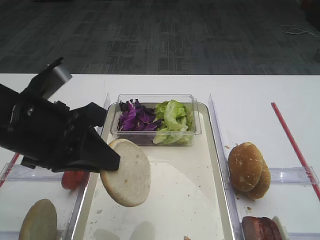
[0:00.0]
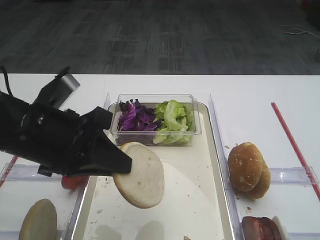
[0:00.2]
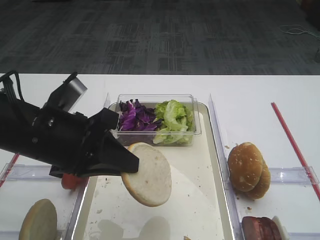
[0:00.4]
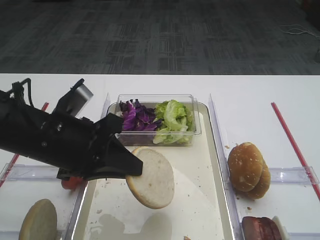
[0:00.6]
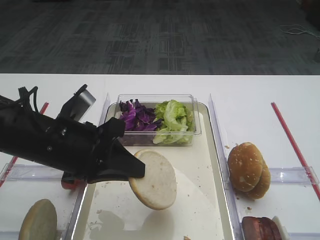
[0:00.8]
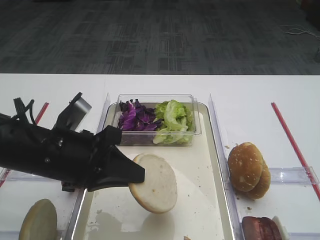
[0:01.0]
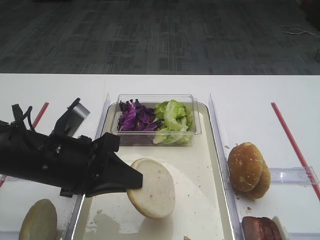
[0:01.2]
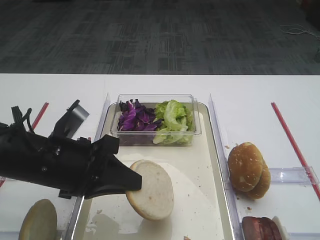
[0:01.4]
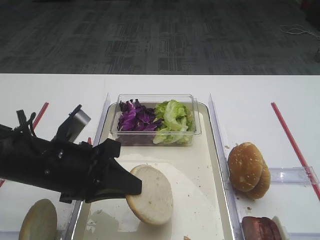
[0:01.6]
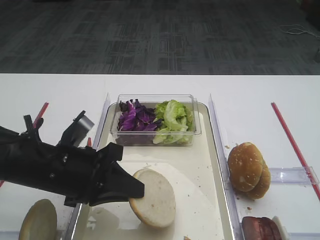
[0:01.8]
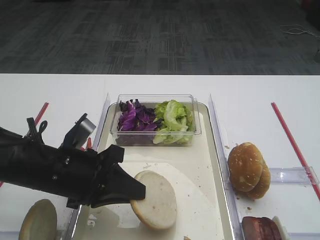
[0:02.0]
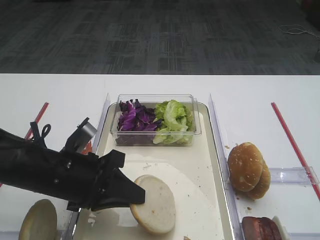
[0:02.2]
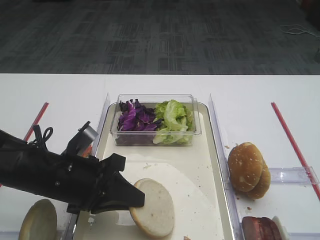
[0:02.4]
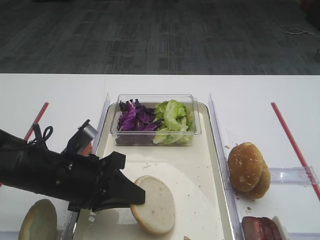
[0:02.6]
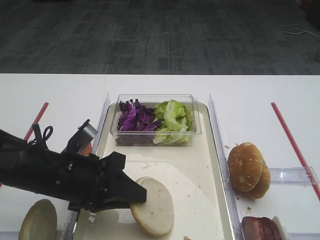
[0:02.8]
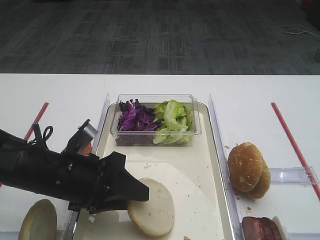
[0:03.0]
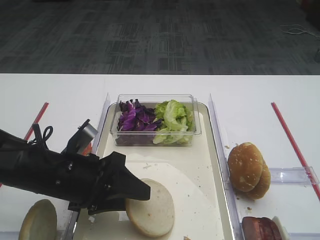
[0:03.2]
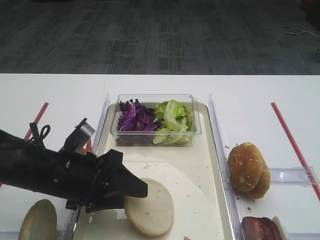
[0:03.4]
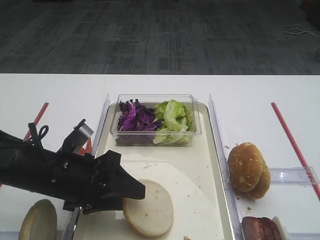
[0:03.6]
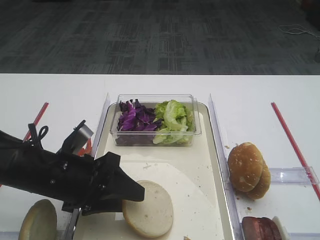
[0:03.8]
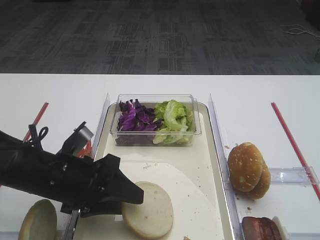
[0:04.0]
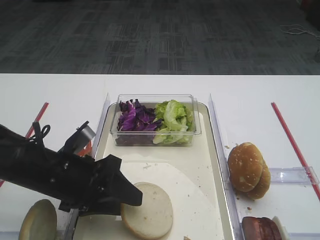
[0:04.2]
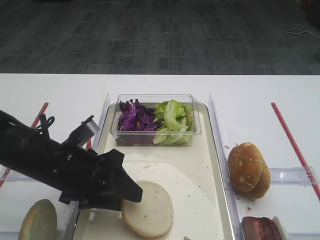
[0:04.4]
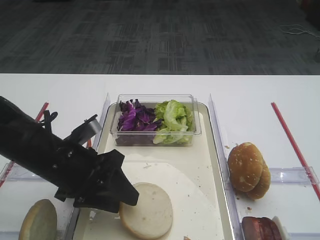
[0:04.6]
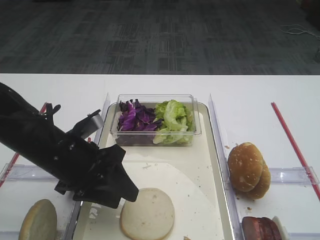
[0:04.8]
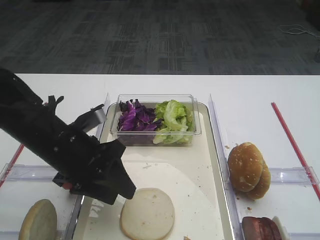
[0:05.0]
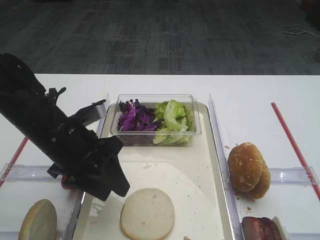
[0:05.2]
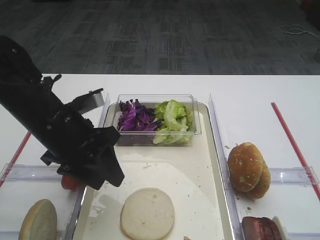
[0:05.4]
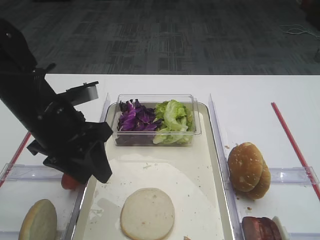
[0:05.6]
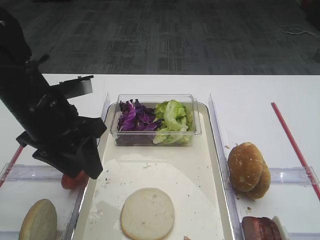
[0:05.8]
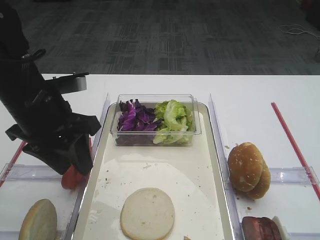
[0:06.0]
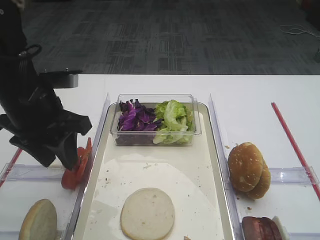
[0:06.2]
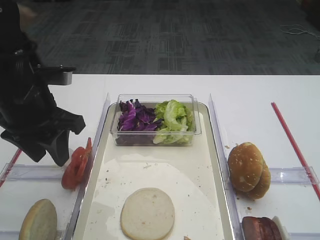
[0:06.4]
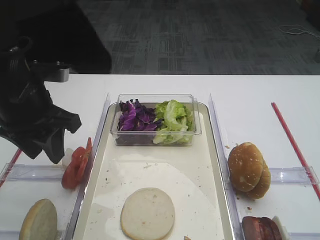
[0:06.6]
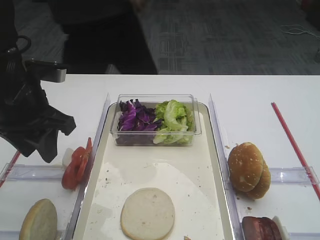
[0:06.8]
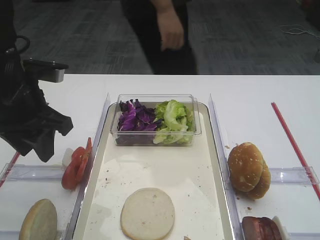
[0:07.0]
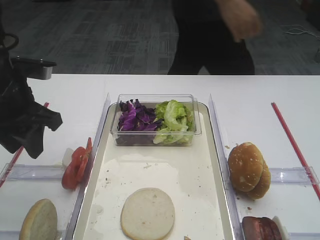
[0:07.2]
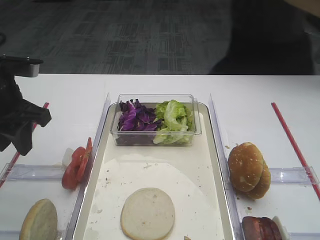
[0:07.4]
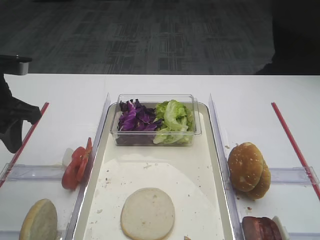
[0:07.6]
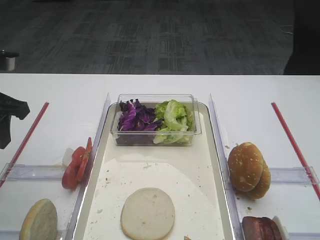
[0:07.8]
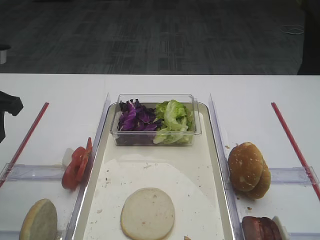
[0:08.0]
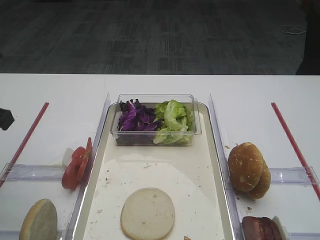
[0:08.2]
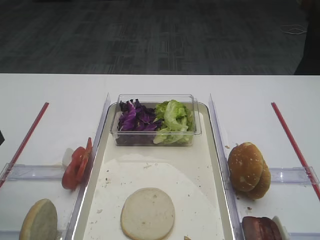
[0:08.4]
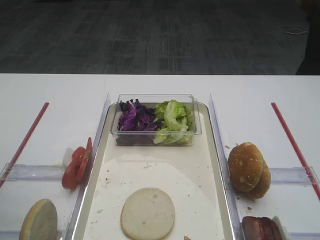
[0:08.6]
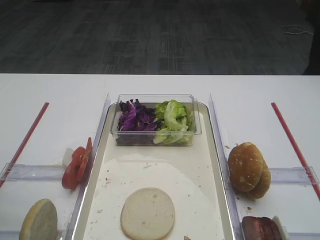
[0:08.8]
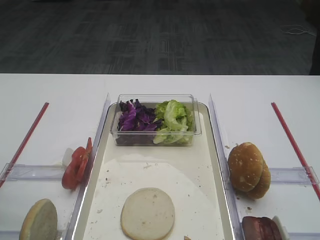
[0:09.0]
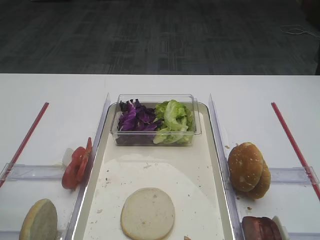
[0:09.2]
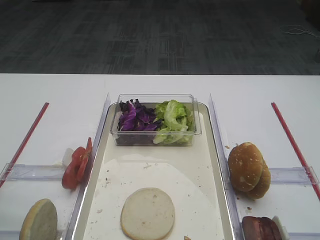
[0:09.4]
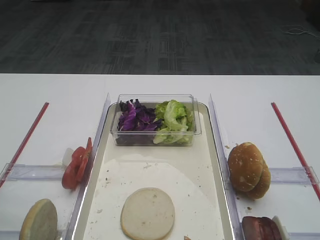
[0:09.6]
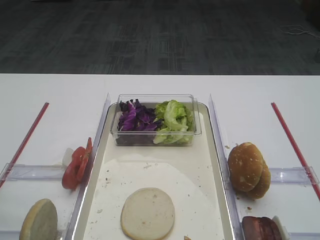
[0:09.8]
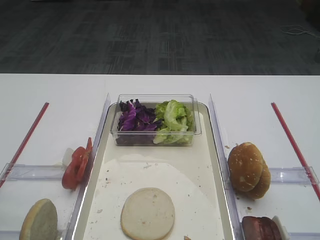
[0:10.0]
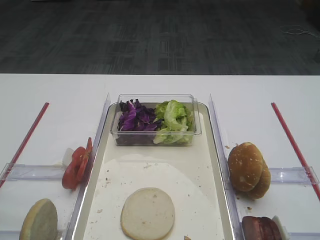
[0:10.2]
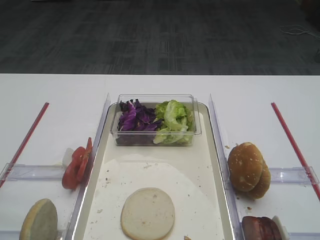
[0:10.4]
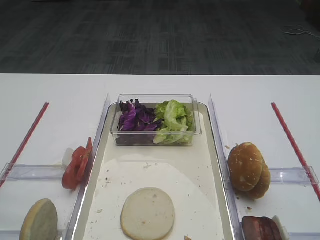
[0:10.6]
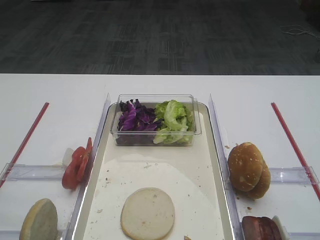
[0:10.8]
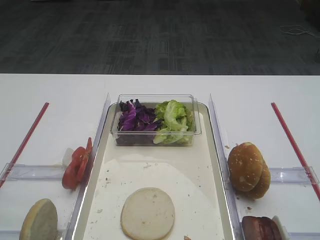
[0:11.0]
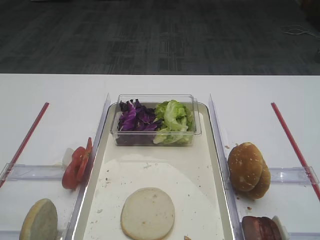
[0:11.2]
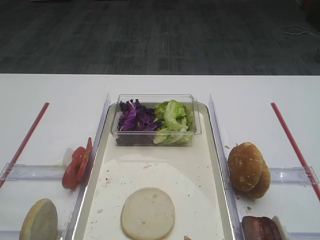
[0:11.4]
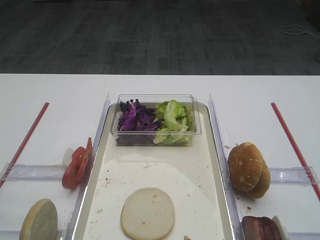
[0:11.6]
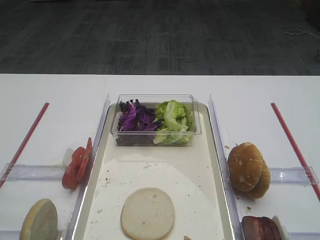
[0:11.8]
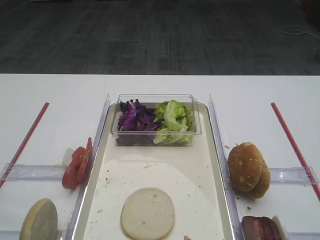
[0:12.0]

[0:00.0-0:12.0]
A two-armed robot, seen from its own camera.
Step, 0.0 to 5.0 s: Place the bread slice on the tray with the left gripper.
0.0 to 1.6 s: The left gripper moves downward, approximately 10 cm.
1.6 to 3.0 s: The left gripper opens its fingers.
3.0 to 4.4 s: There are only small adjustments of the grippers.
4.4 to 6.0 s: The left gripper is displaced upward by about 10 cm.
6.0 to 7.6 s: The left gripper shifts some 10 cm to the left.
7.6 to 9.0 s: The left gripper travels backward by roughly 10 cm.

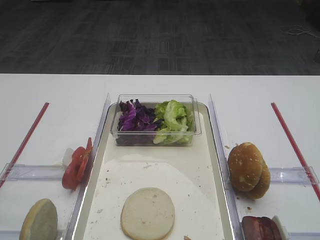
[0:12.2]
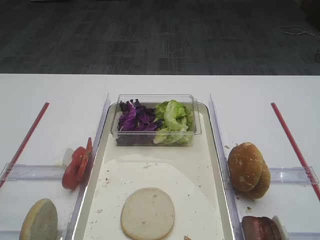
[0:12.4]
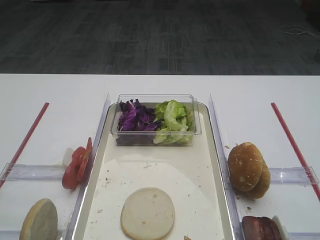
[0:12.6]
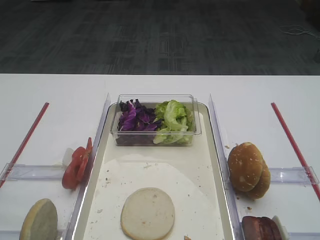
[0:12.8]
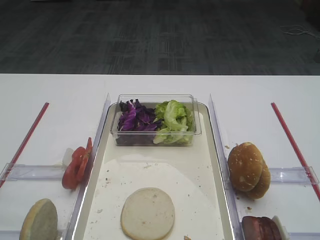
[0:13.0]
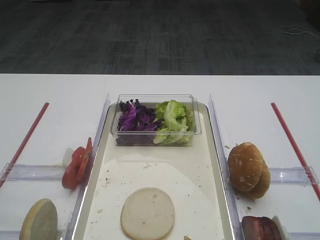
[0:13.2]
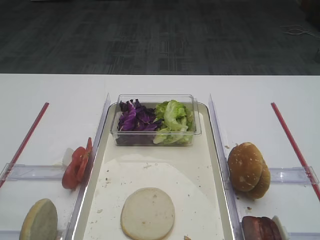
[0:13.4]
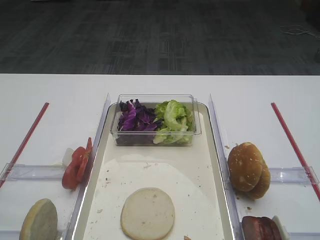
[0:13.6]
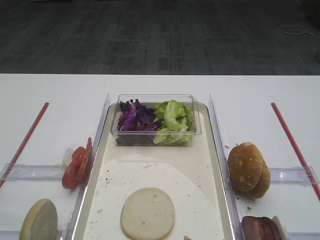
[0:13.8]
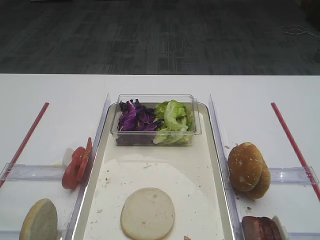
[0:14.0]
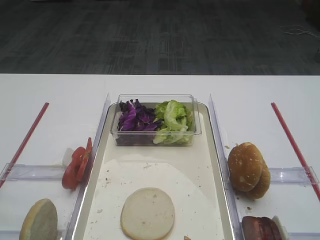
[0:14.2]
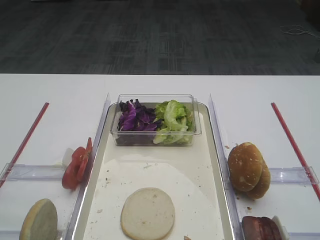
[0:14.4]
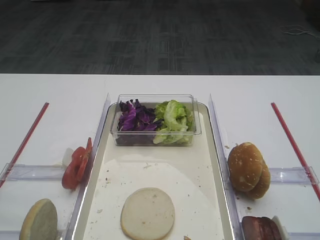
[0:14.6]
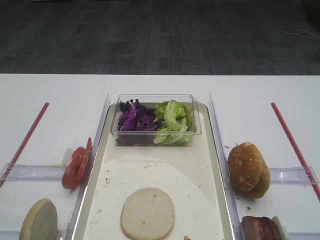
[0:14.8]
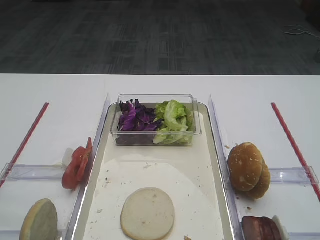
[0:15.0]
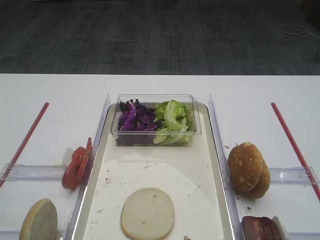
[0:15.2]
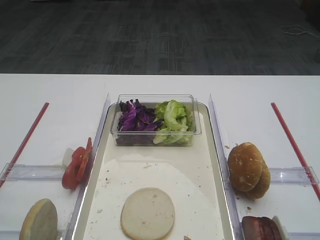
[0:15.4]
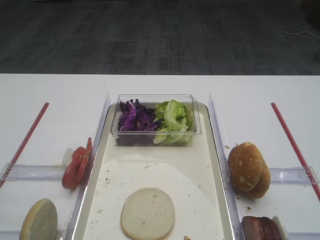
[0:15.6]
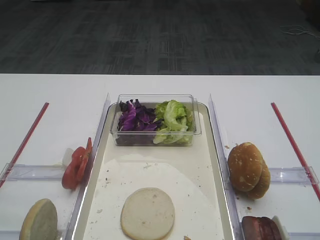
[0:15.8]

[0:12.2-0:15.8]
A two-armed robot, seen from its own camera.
12.2 to 15.8 s: Neither gripper changes place.

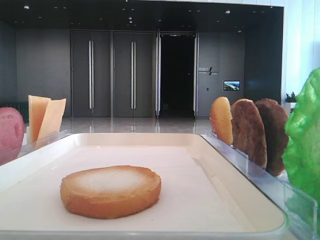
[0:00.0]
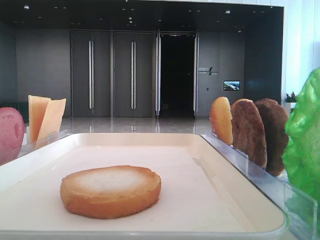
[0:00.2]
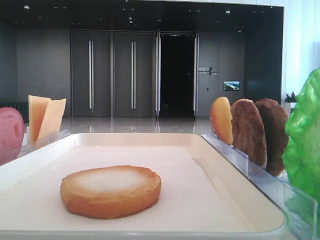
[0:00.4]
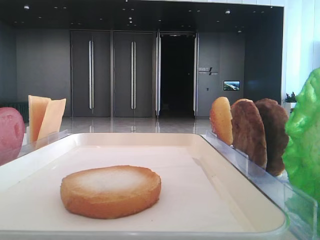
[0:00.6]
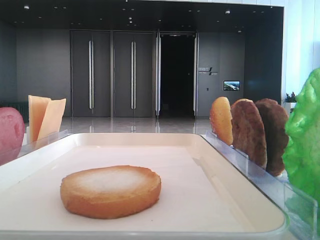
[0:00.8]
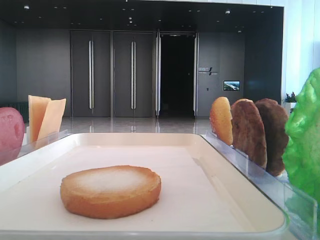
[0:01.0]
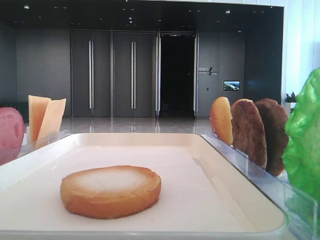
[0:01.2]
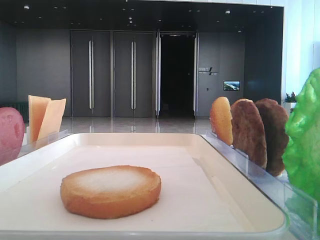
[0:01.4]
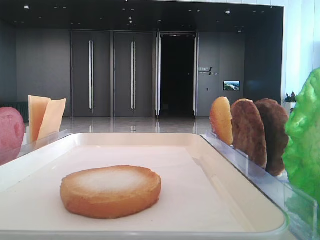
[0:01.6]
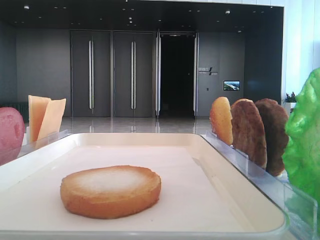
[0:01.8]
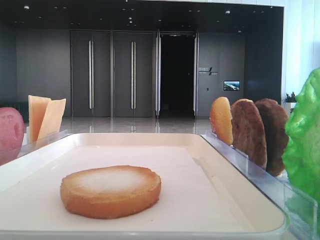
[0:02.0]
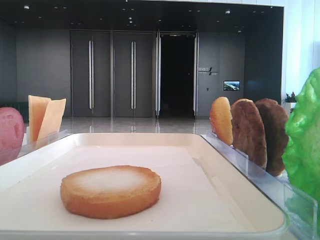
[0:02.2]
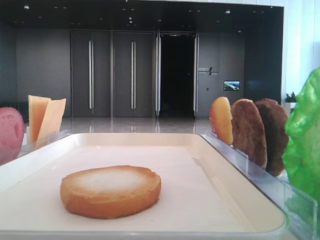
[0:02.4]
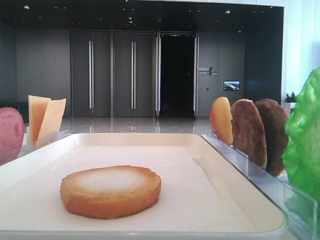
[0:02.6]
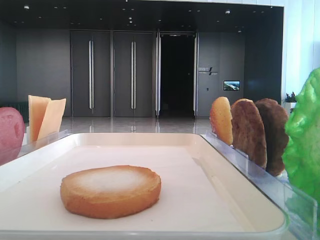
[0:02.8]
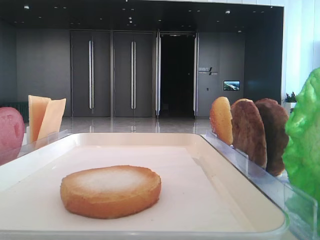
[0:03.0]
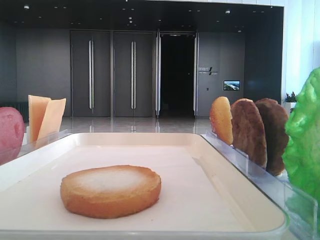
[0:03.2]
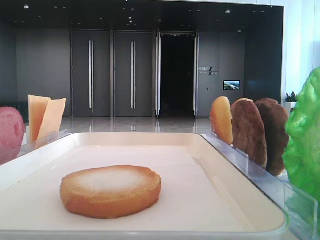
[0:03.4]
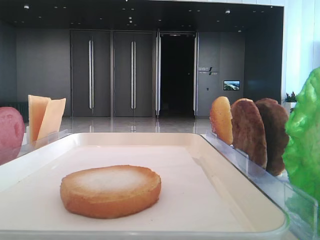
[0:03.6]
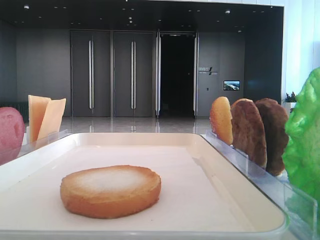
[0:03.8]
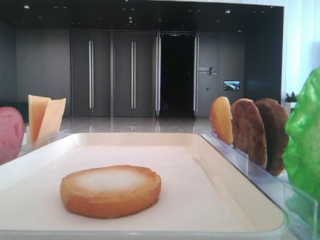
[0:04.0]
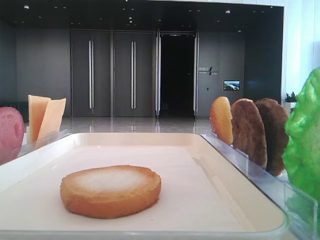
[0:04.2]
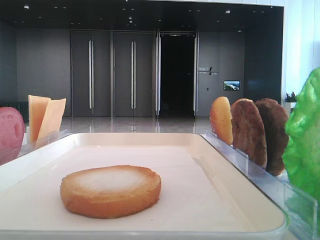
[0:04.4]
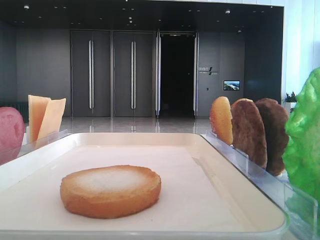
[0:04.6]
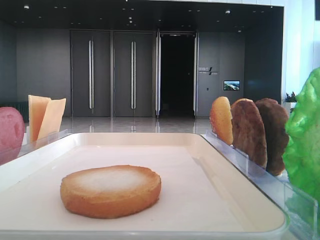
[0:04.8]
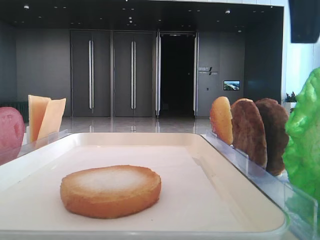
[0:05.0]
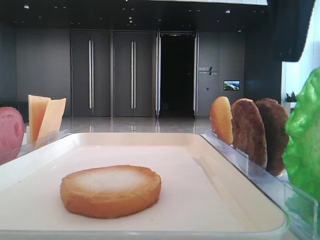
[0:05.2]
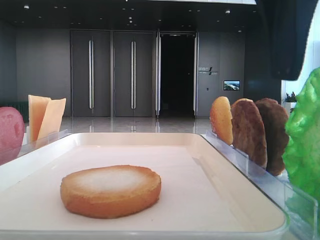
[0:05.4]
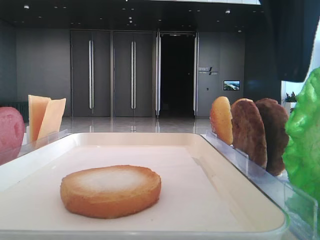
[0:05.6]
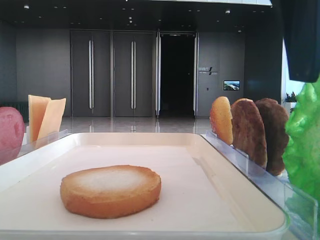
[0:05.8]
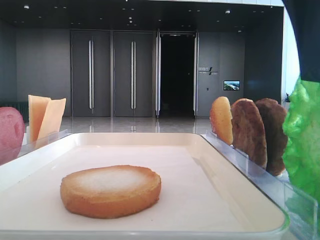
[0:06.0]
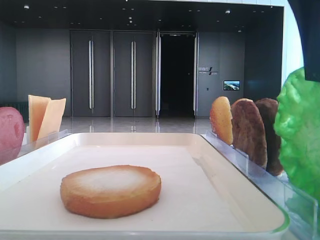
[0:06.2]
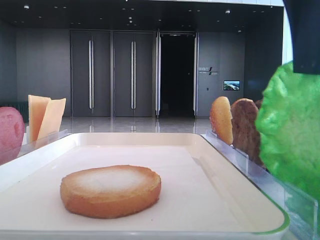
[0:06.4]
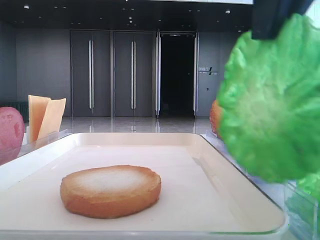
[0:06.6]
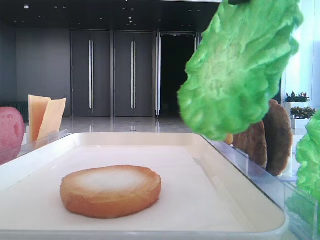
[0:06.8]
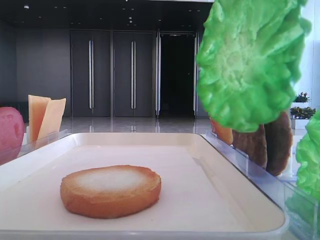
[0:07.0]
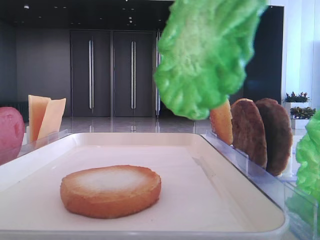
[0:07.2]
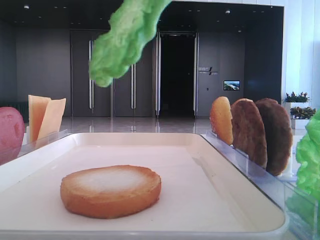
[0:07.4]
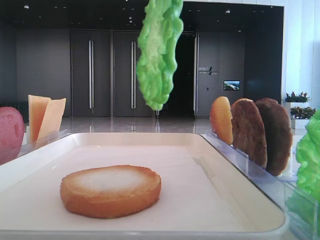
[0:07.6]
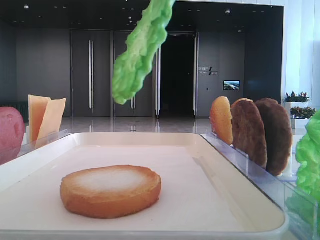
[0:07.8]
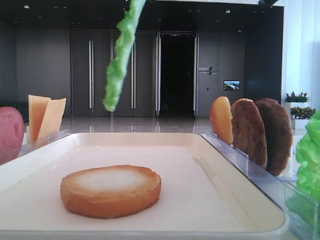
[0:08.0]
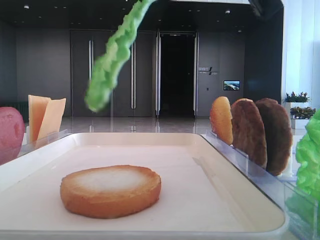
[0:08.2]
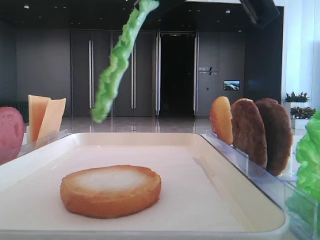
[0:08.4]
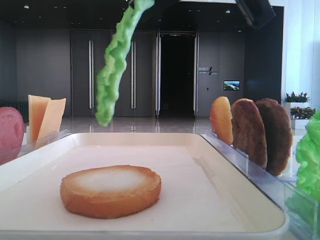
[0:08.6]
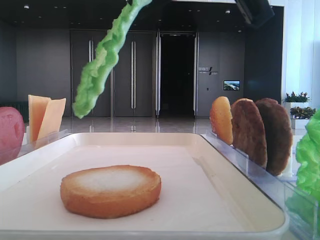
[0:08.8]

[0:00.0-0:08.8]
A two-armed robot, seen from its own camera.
Step, 0.0 to 6.0 s: Grab the lettuce leaf with the right hand.
4.4 to 5.8 s: The right gripper travels to the left by some 5 cm, and closes.
5.8 to 7.4 s: The left gripper closes its fingers; the right gripper travels upward and to the left by approximately 10 cm, and closes.
7.4 to 8.8 s: The right gripper travels downward by some 5 cm.
